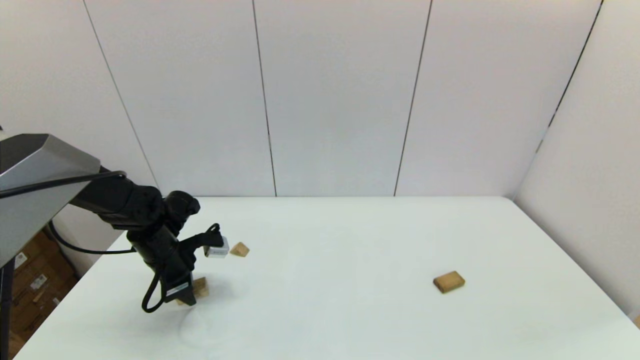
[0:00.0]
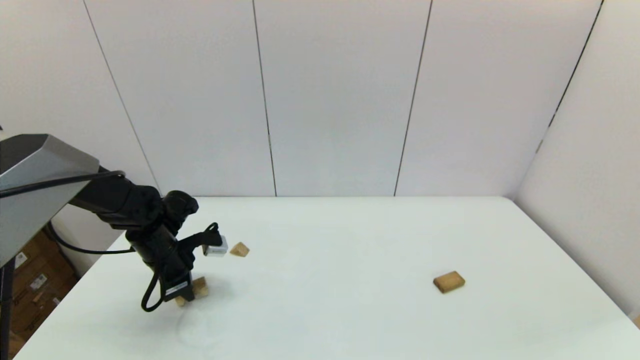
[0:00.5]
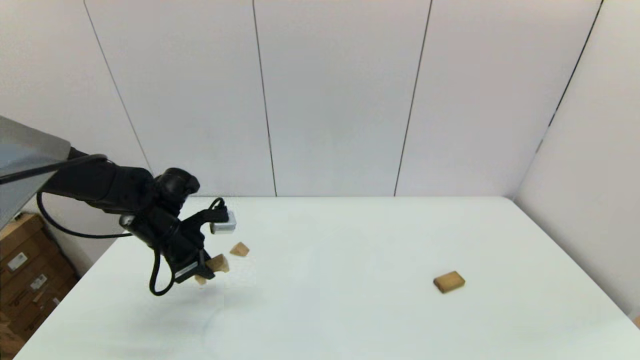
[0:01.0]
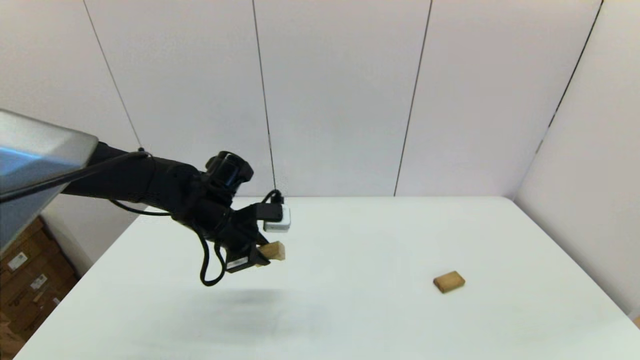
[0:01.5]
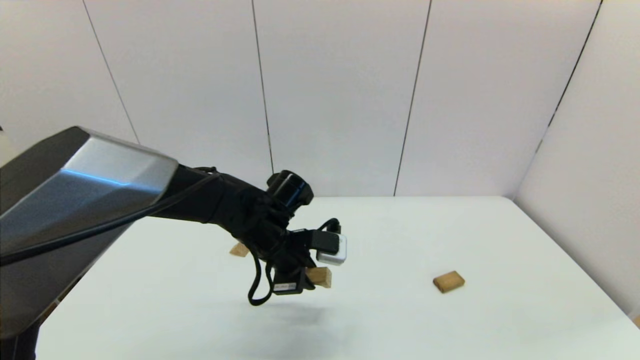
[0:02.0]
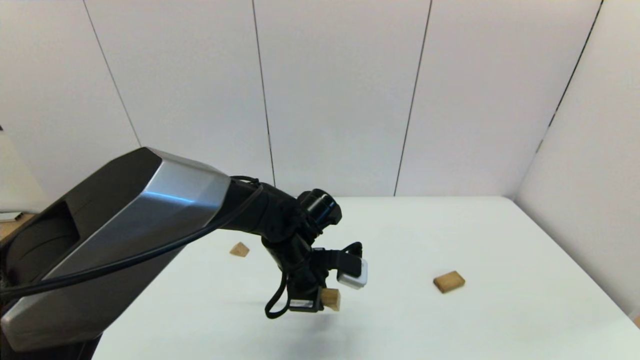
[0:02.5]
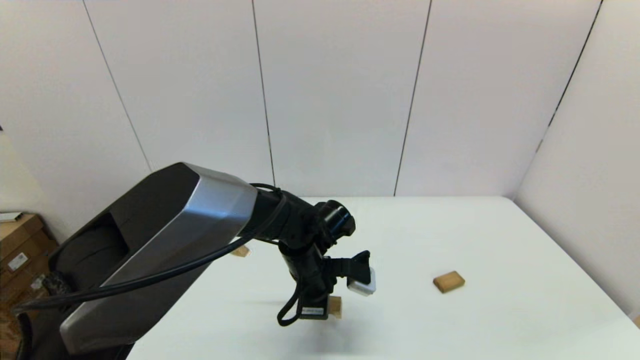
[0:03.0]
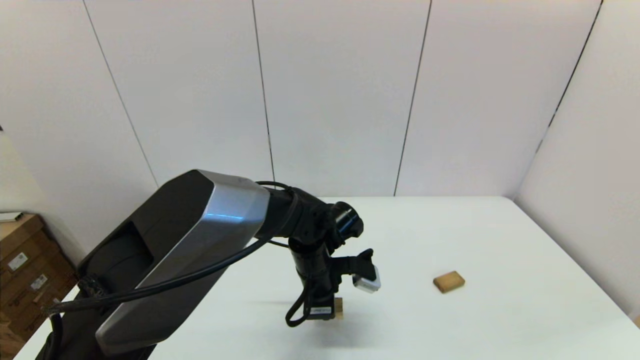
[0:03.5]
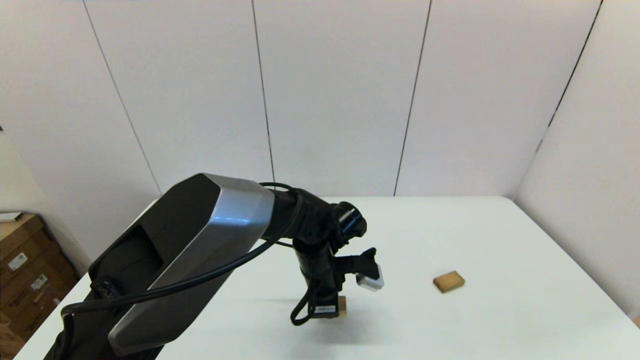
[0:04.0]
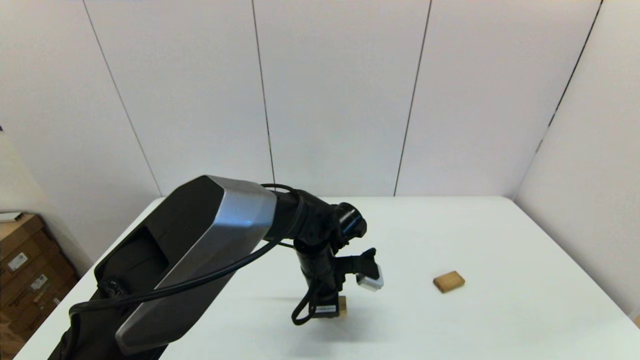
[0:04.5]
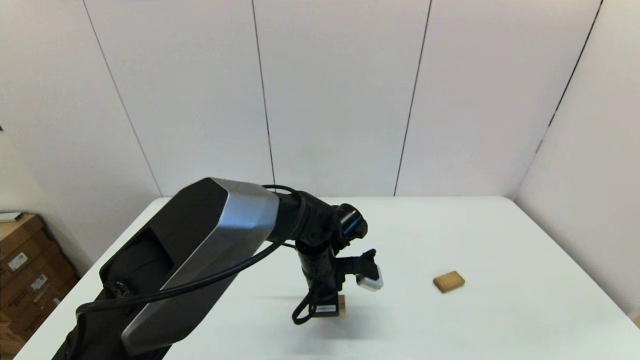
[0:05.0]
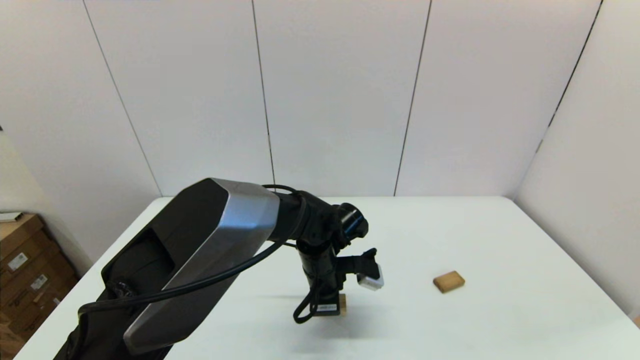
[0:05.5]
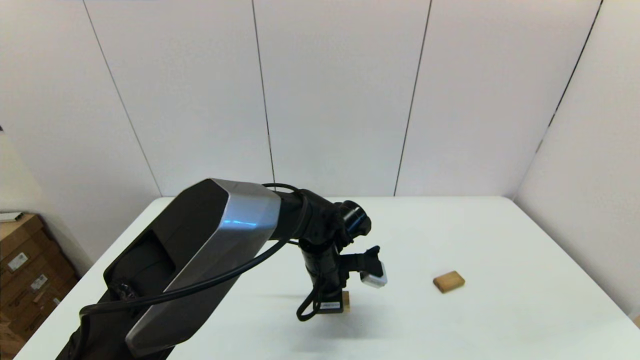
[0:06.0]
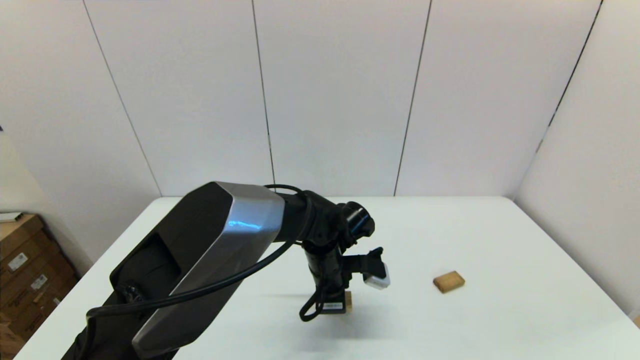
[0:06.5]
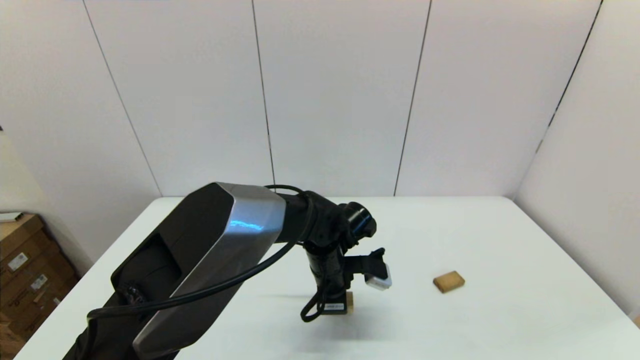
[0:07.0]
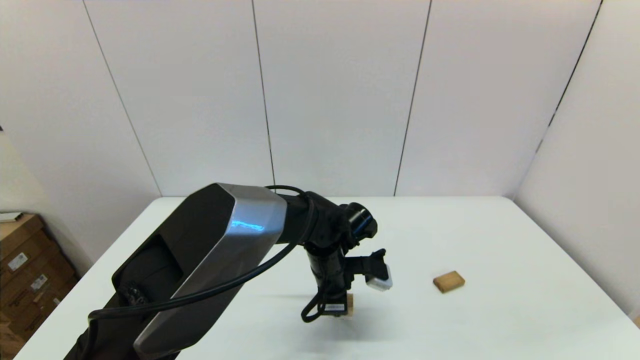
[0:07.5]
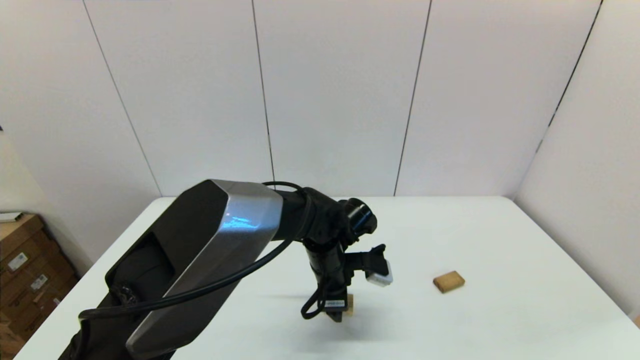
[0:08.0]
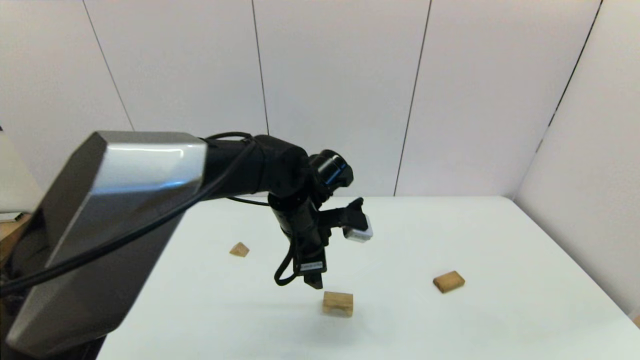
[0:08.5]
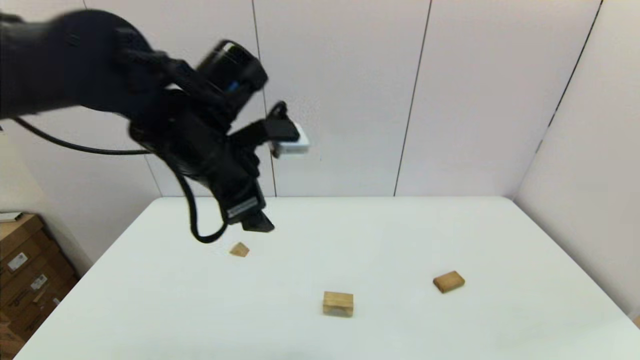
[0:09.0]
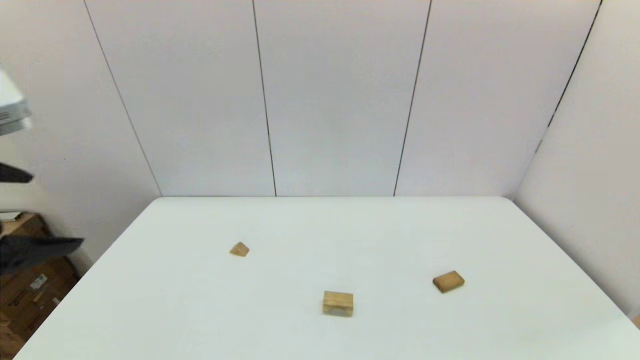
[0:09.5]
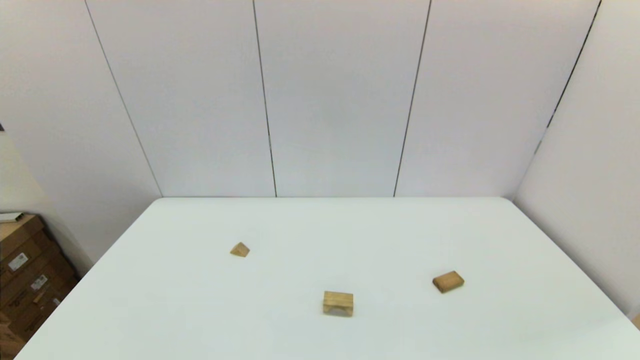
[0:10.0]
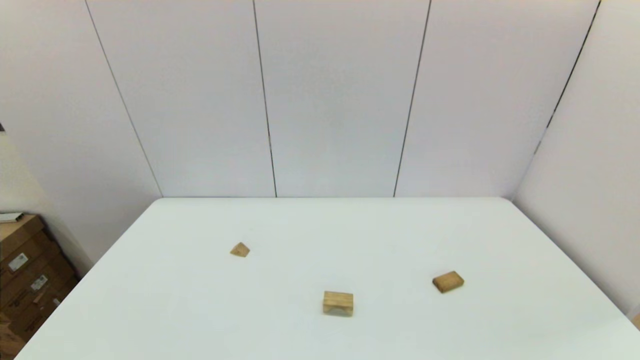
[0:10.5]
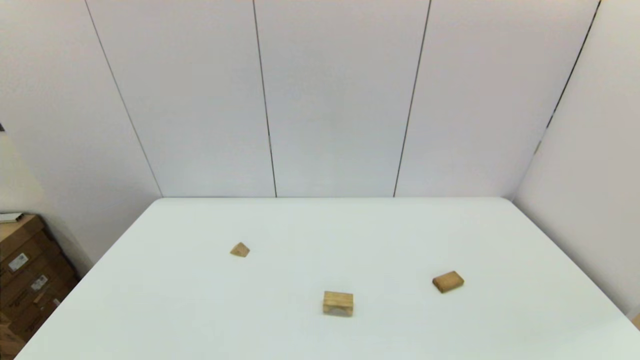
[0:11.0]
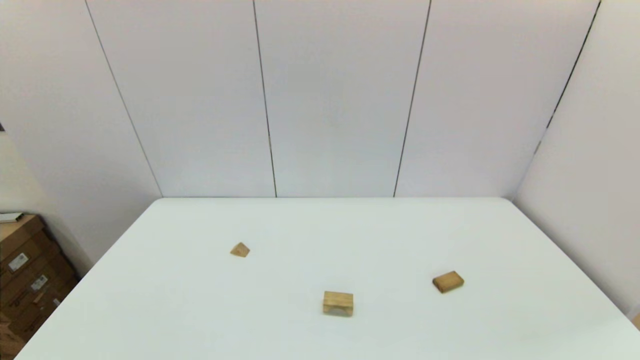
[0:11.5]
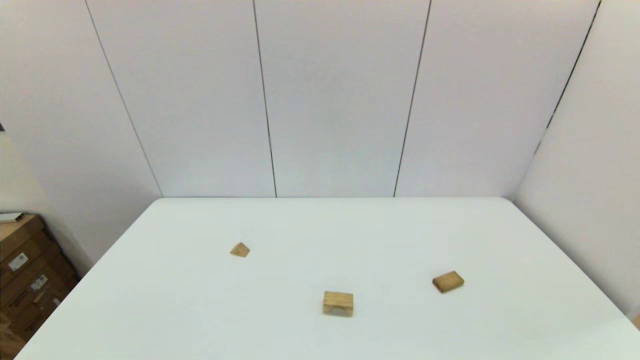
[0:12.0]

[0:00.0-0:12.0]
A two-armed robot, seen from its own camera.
Task of the whole recording: place the arched building blocks in the center of the table, set up the rectangular building blocks, and then set up the triangular building blocks.
Step, 0:00.5 to 0:07.5: Place the arch-shaped block in the center of view with the left gripper.
0:00.0 to 0:02.0: The left gripper shifts about 20 cm to the right.
0:02.0 to 0:04.0: The left gripper travels to the right by approximately 5 cm.
0:04.0 to 0:06.0: The two grippers keep their place.
0:06.0 to 0:08.0: The left gripper opens.
0:08.0 to 0:10.0: The left gripper travels backward, to the left and upward by roughly 50 cm.

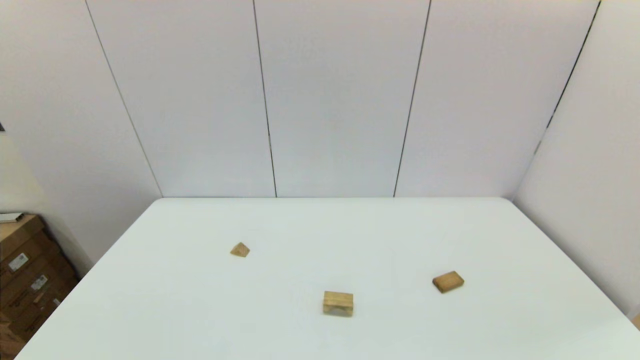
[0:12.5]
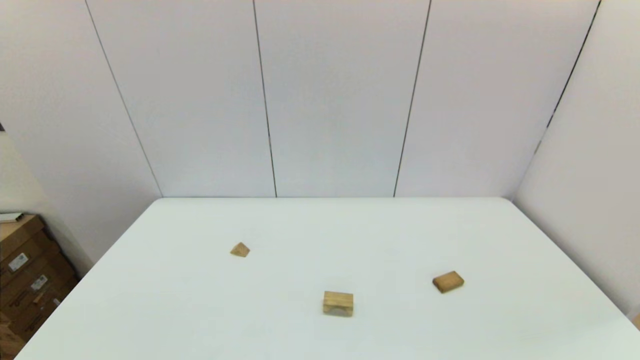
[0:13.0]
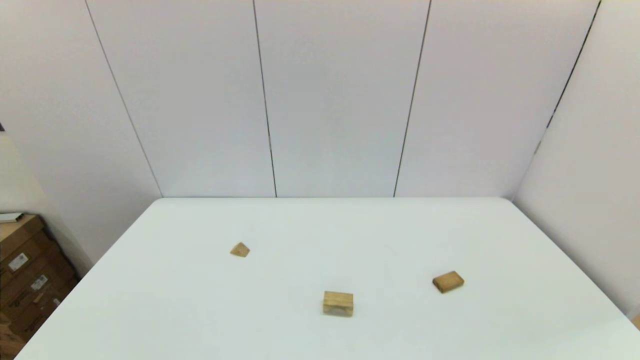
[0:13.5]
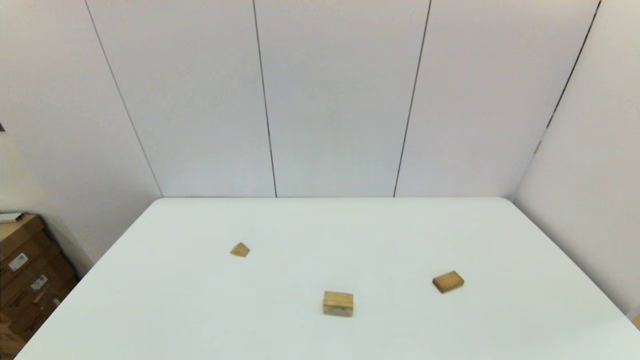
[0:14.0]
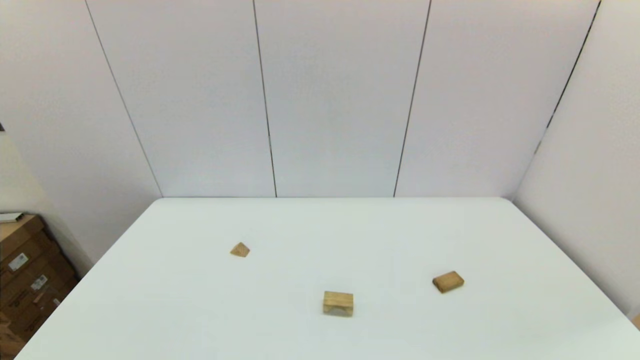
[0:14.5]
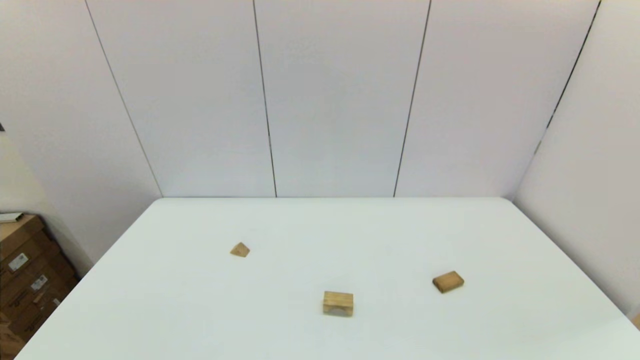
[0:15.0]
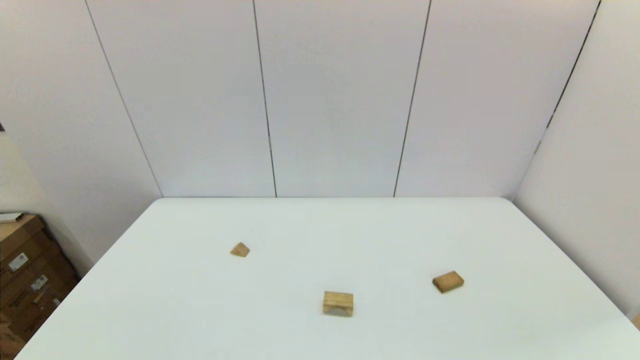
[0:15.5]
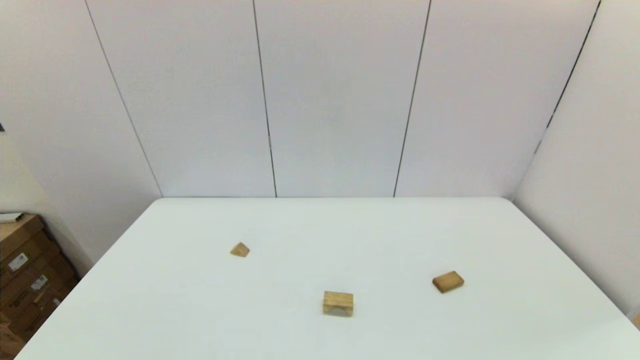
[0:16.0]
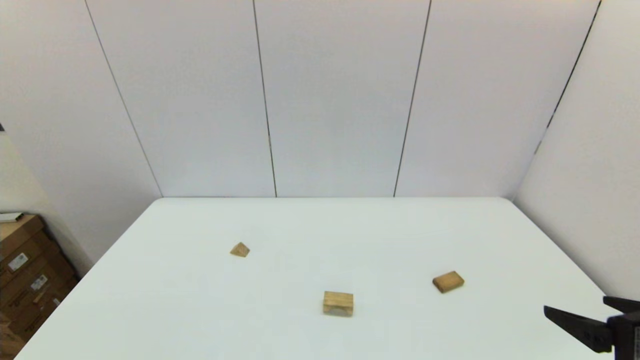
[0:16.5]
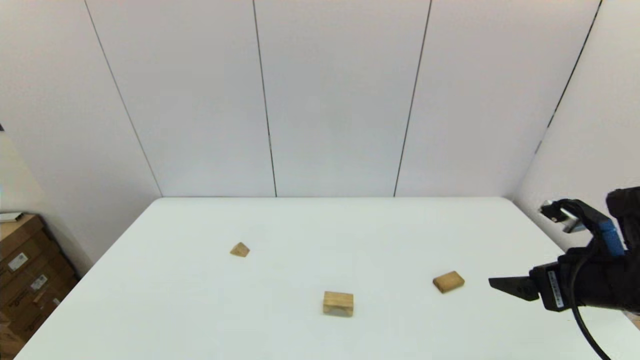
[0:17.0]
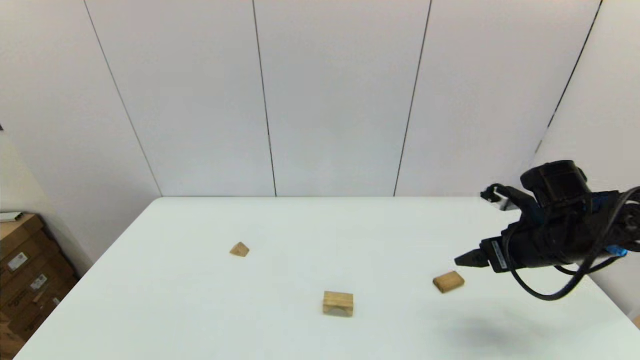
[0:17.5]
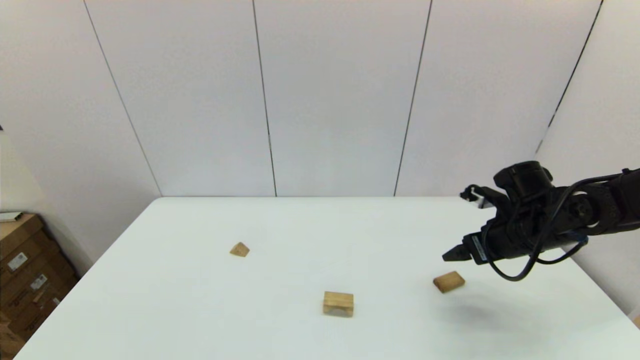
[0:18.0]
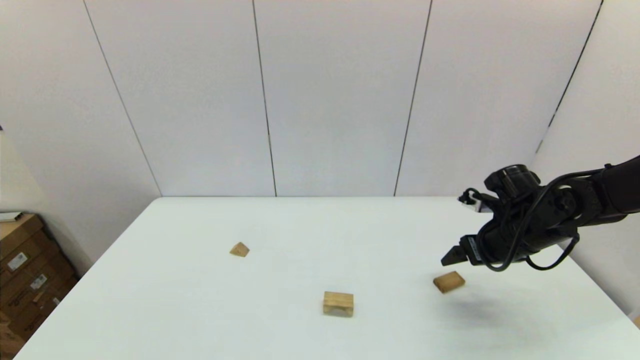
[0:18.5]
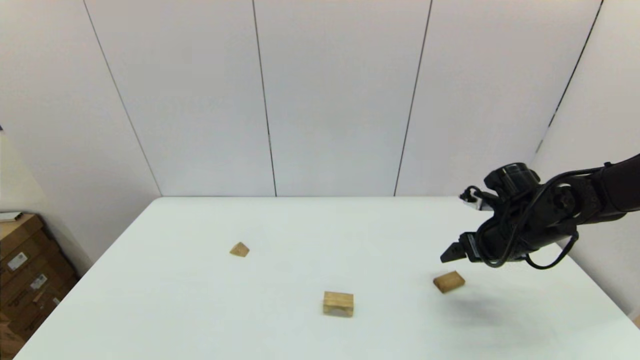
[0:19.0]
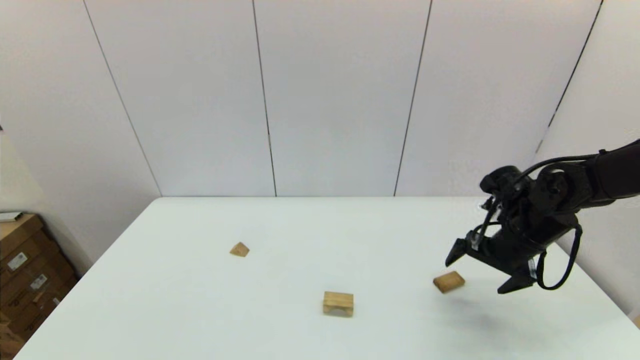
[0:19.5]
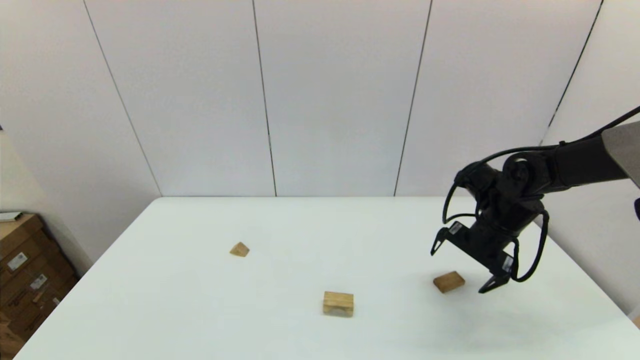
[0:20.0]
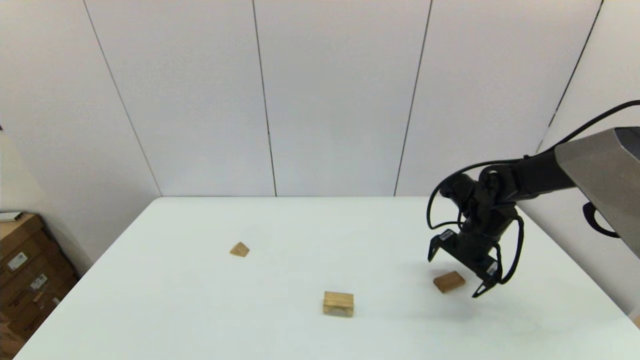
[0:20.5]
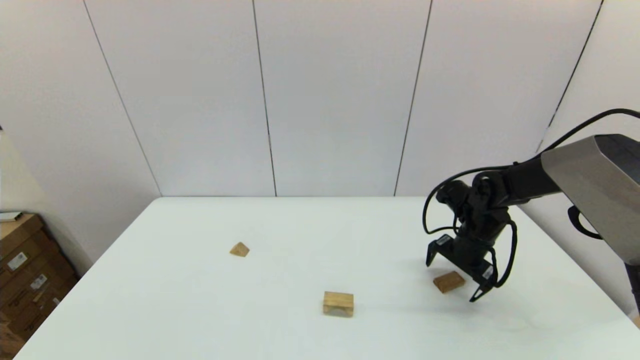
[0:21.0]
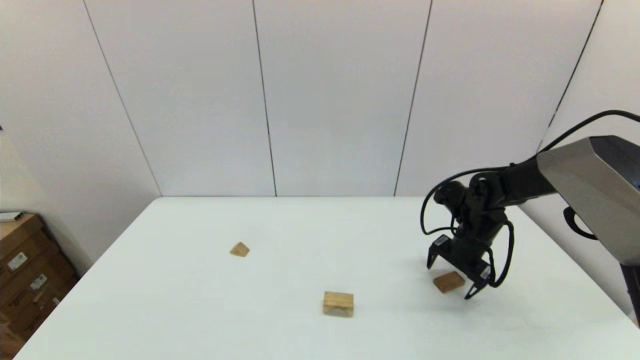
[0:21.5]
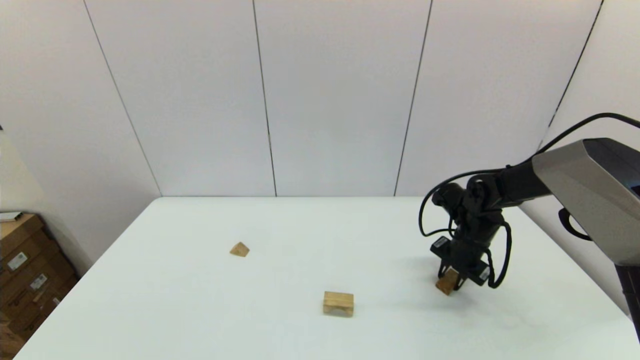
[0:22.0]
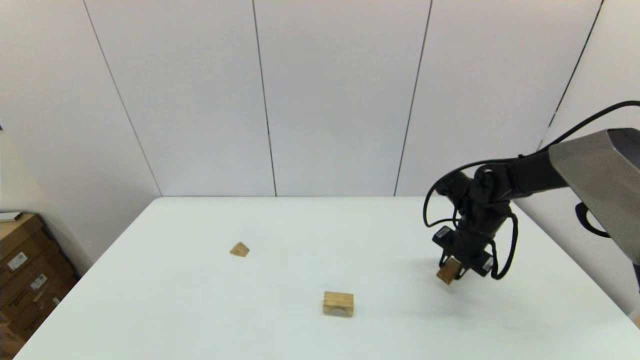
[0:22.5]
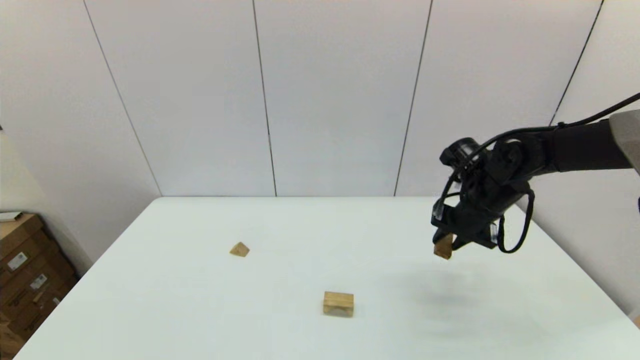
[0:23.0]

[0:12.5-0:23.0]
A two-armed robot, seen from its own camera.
Task of the whole recording: place the arched building blocks in the center of the table, set up the rectangular building blocks, and then set up the triangular building blocks.
Step, 0:12.5 to 0:22.0: Grasp the box-shaped block with the right gripper.
0:14.5 to 0:16.5: The right gripper is displaced forward and upward by roughly 15 cm.
0:16.5 to 0:19.0: The right gripper travels forward by approximately 25 cm.
0:19.0 to 0:21.0: The right gripper shifts roughly 10 cm forward and downward.
0:21.0 to 0:23.0: The right gripper goes about 10 cm upward, and closes up.
